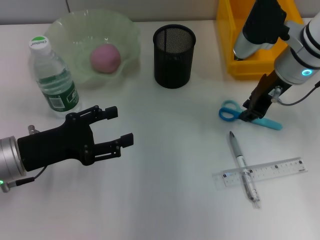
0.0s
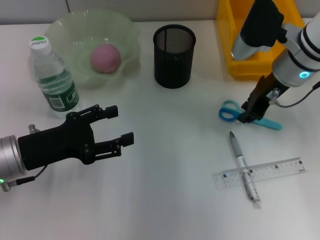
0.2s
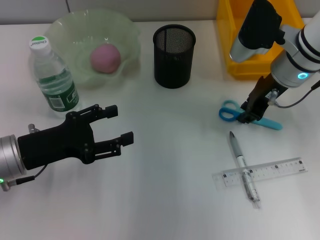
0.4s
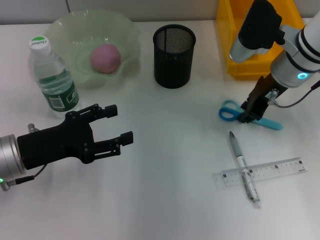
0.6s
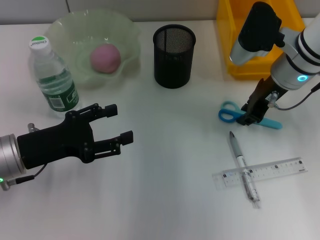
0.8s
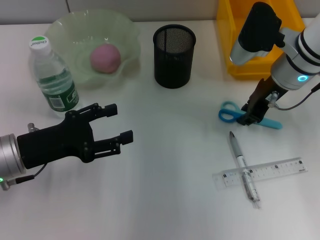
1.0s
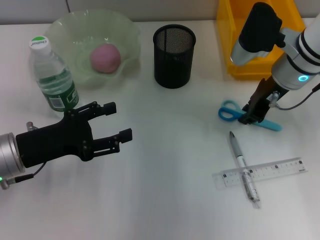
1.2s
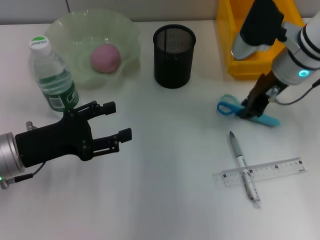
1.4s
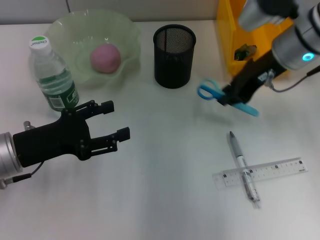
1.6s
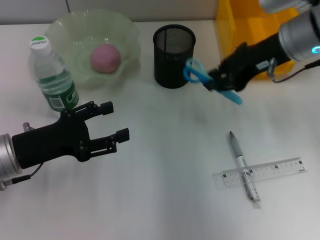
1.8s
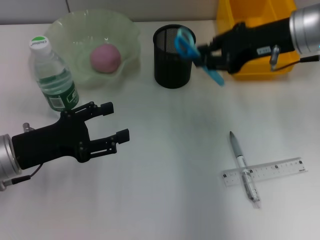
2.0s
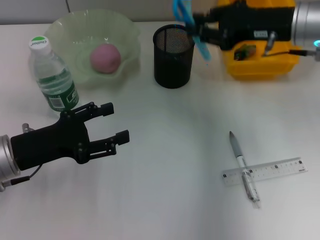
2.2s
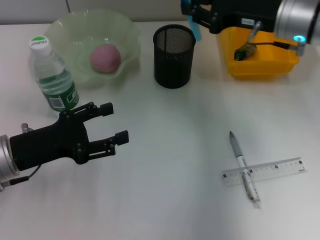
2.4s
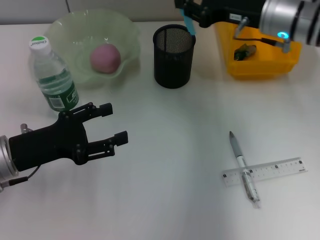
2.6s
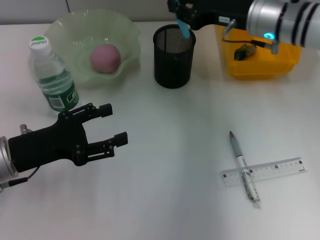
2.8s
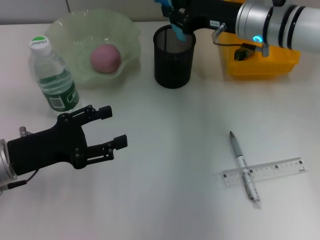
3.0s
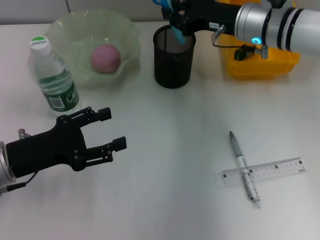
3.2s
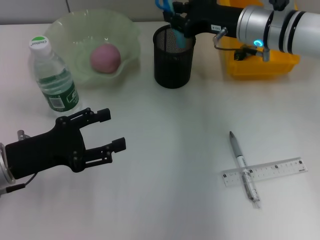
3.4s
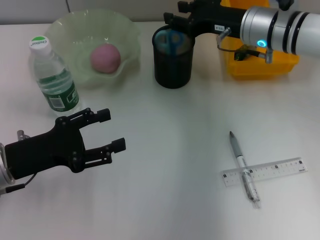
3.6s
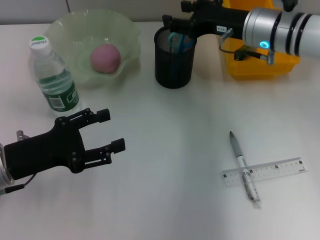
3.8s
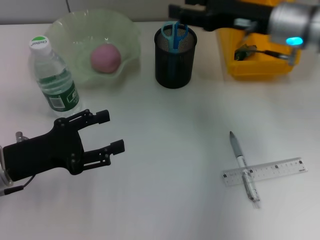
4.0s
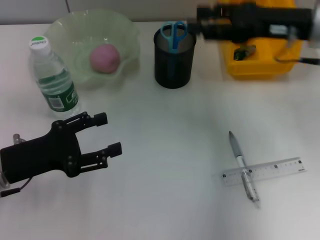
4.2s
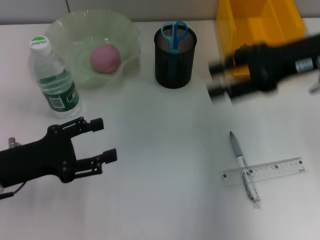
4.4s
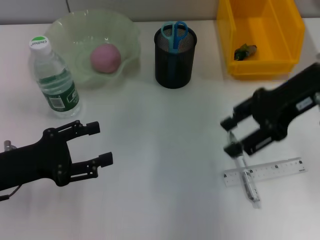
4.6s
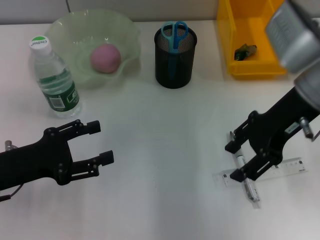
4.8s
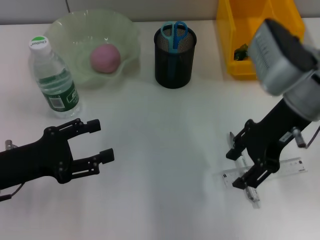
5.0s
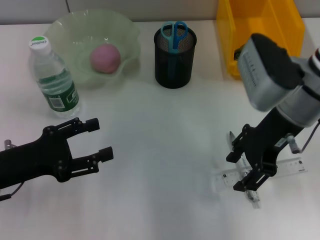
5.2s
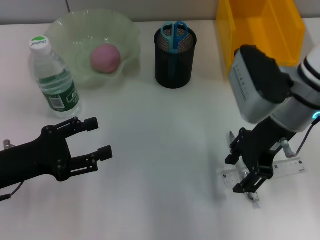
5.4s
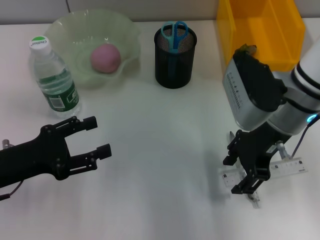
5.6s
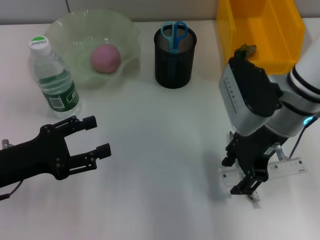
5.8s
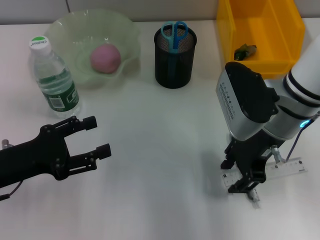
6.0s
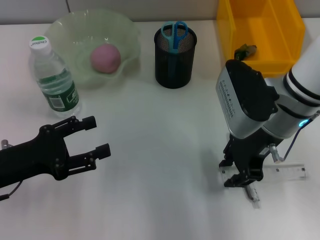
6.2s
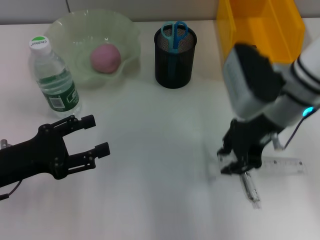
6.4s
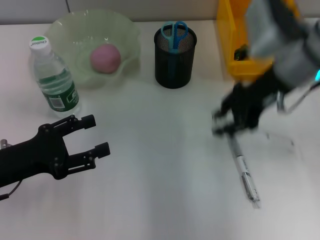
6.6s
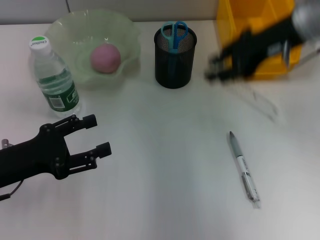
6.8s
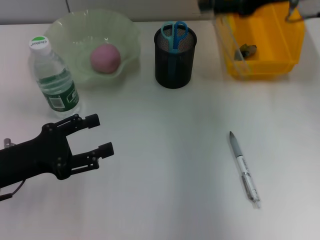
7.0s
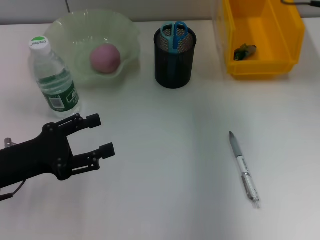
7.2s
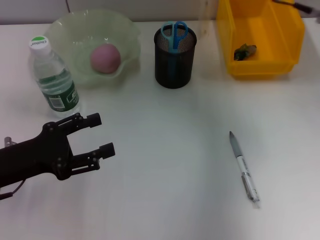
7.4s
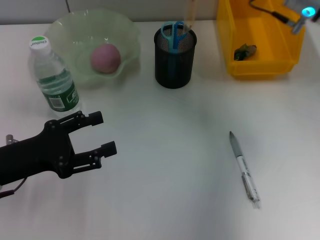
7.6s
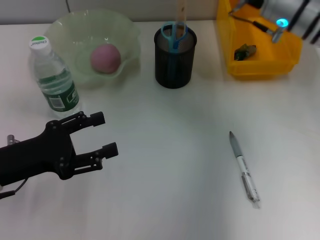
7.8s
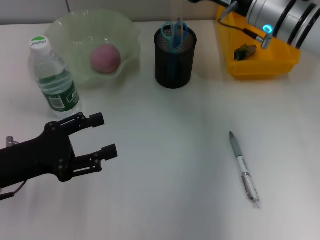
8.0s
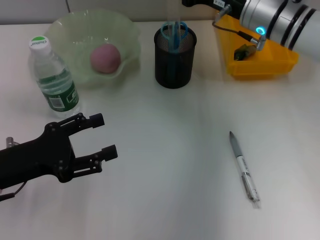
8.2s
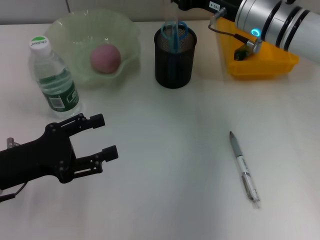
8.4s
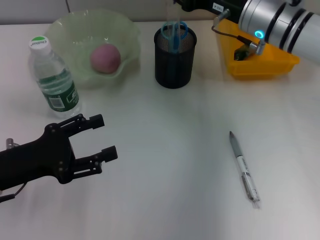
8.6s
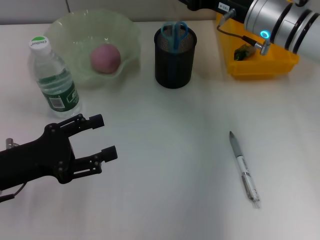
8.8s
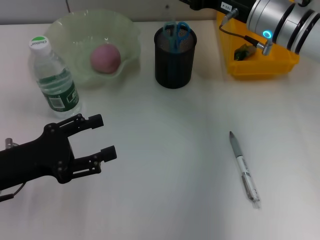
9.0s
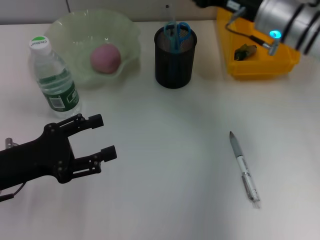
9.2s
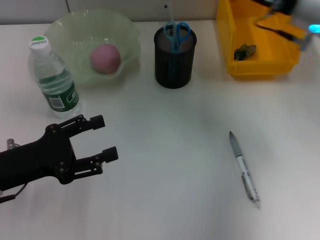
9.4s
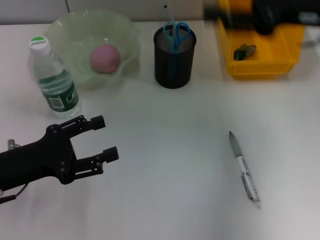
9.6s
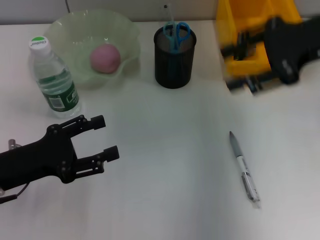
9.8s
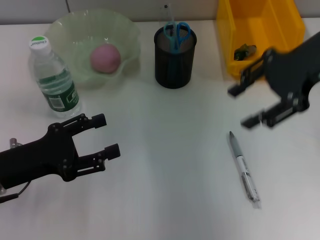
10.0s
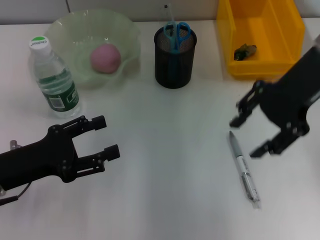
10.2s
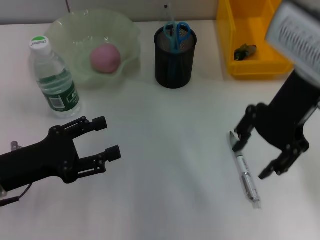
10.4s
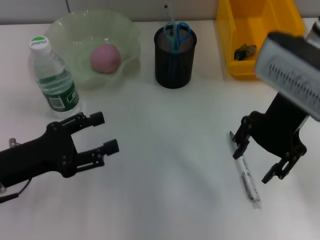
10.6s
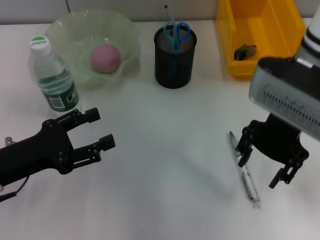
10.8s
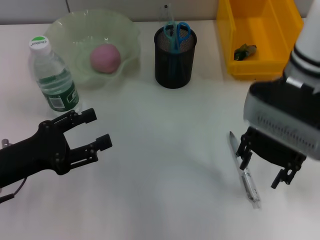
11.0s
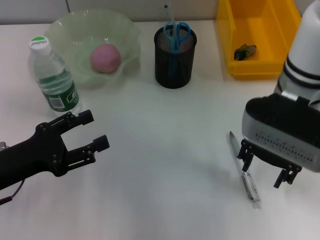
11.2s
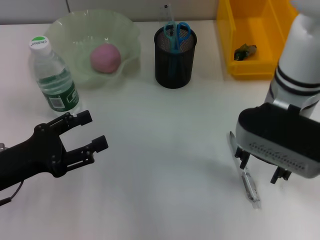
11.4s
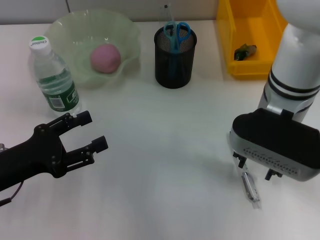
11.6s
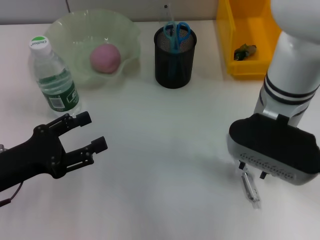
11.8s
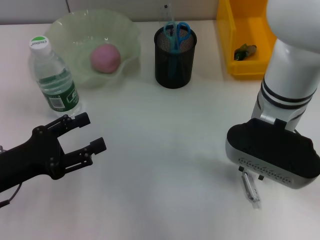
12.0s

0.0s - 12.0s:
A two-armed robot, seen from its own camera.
Step, 1.2s - 3.4s: Place the blue scissors into the pen holder with the right hand.
Step, 3.8s - 6.0s: Grab the ruler with the right hand.
Step, 6.2s - 9.0s: Place the ruler into the pen holder with the right hand.
0.0s - 1.6s: The right gripper closes its fingers.
1.6s - 3.0s: The right gripper moves about 5 cm.
3.0s - 4.4s: The right gripper heads to the right, backward and upward, covering approximately 15 cm, and opens up.
4.4s - 6.0s: The right gripper heads to the left and downward, covering about 10 cm.
6.0s - 7.6s: The right gripper moves forward, about 10 cm.
7.6s - 9.0s: The right gripper moves about 5 cm.
9.0s - 10.4s: The right gripper heads upward and backward, covering about 10 cm.
10.4s - 12.0s: The right gripper moves downward and to the left, about 10 cm.

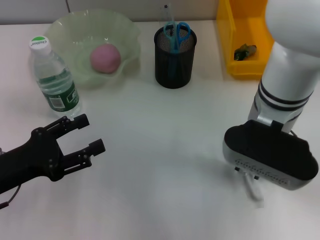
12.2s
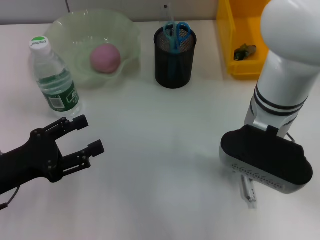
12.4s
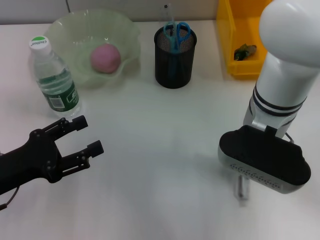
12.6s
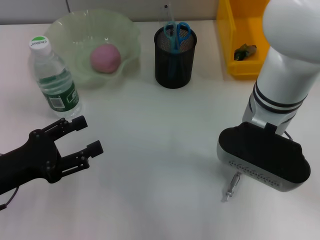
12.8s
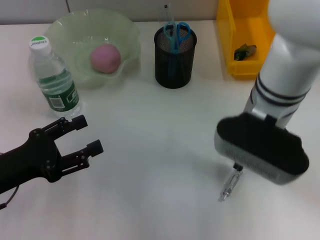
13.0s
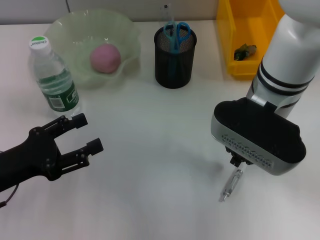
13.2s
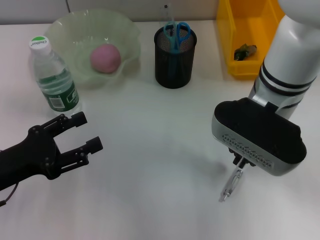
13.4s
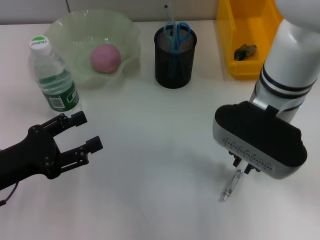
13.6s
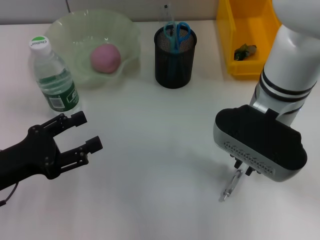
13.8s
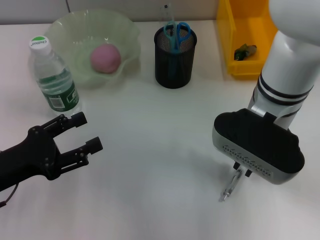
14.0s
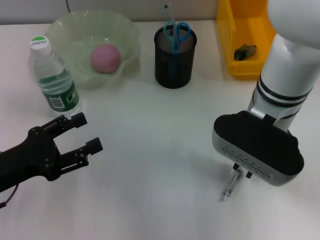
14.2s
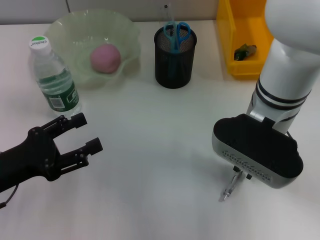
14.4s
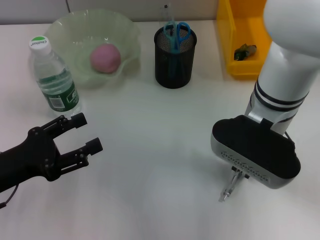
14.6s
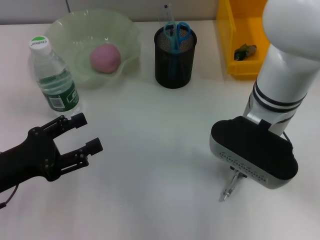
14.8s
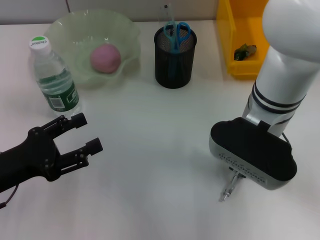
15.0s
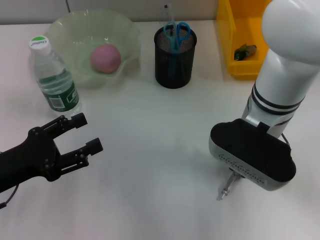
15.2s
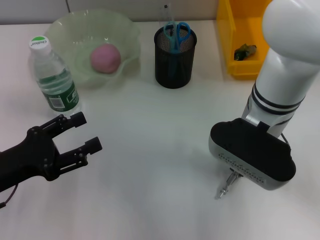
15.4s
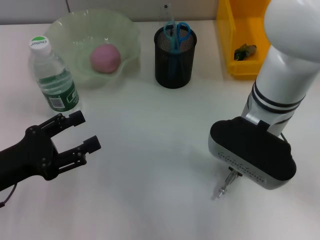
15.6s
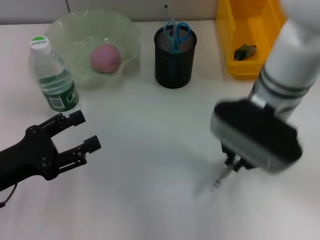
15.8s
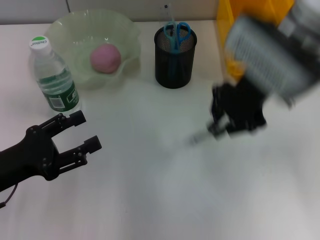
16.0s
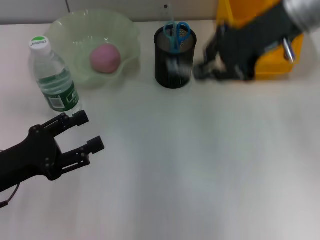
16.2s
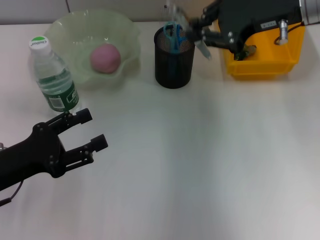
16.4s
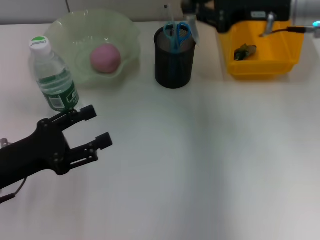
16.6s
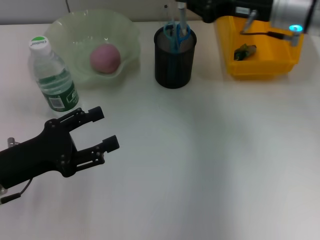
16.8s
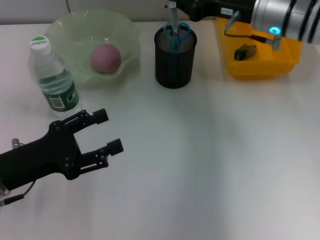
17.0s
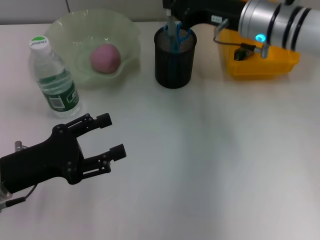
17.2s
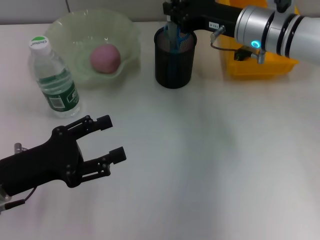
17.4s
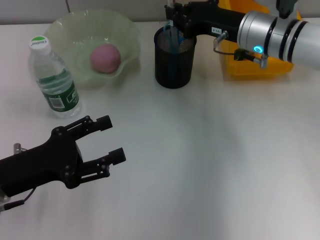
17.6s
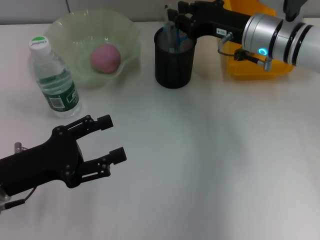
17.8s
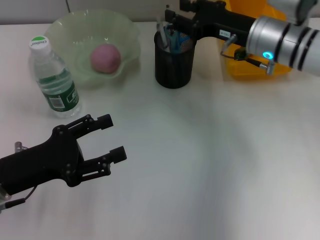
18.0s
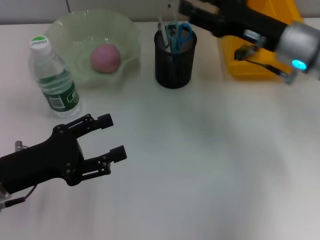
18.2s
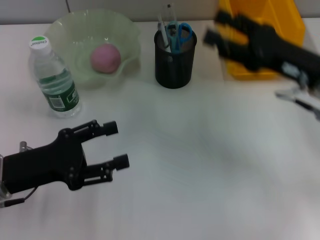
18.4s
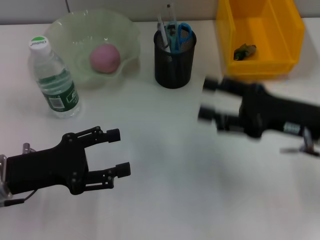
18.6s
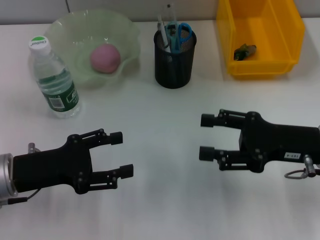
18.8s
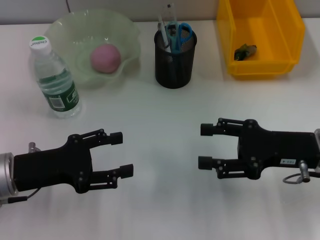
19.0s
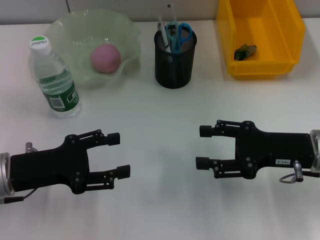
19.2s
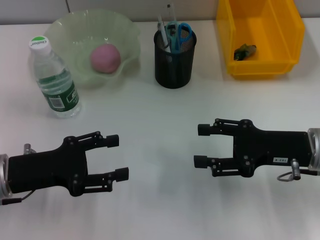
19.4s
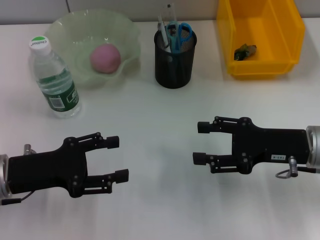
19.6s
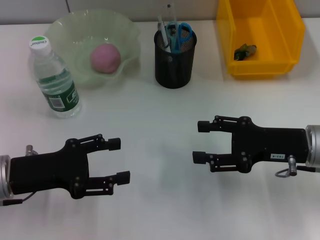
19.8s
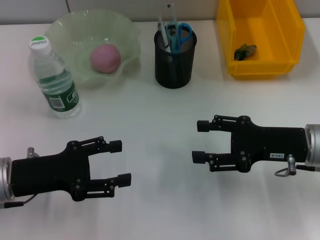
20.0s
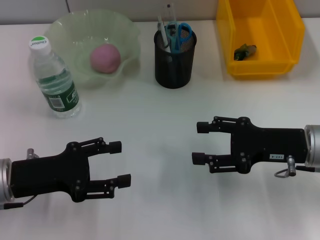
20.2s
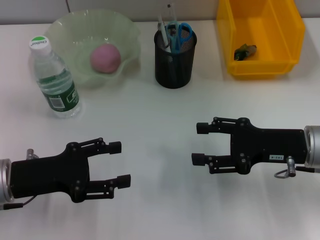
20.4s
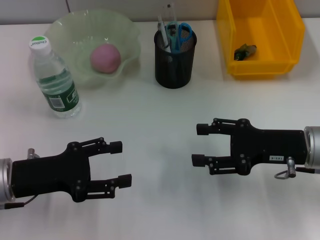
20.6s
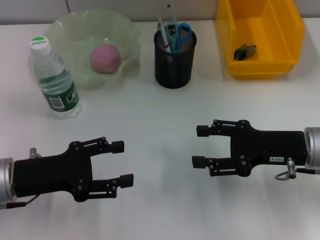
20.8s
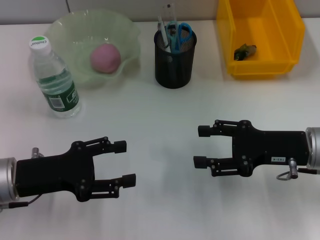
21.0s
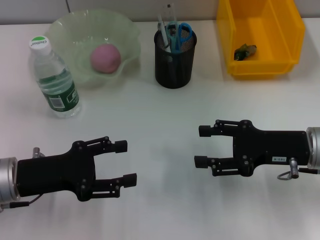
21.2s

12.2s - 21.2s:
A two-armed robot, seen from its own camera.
Step, 12.2s - 15.4s: Grab the gray spring-action pen with the right hand.
Step, 15.6s - 18.0s: Place the gray spring-action pen into the pen holder with the right hand.
12.2s - 13.8s: The right gripper closes its fingers.
13.8s - 15.2s: The grippers move only a little.
15.2s - 16.6s: The right gripper shifts approximately 15 cm to the right, forward and upward.
16.6s - 18.2s: The right gripper travels downward by approximately 5 cm, and opens.
18.2s - 19.8s: The right gripper heads backward and downward, covering about 10 cm.
19.8s - 21.2s: Neither gripper changes place.

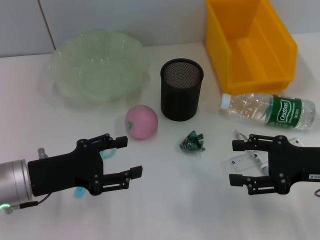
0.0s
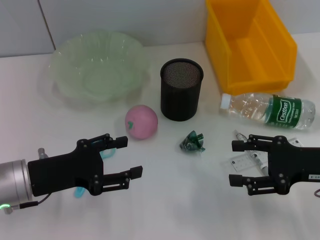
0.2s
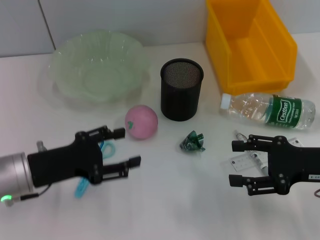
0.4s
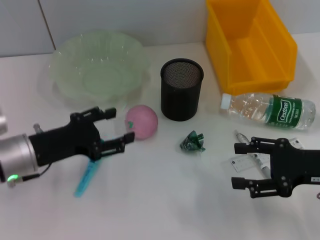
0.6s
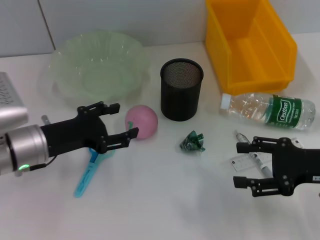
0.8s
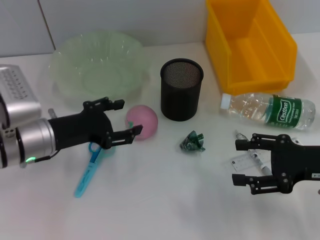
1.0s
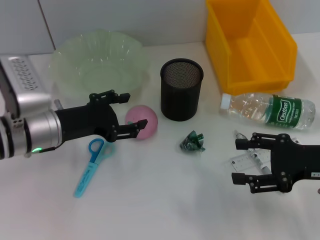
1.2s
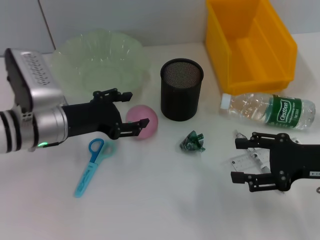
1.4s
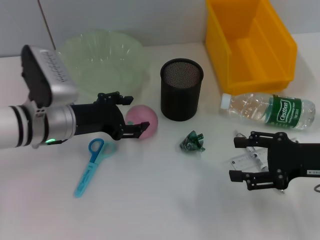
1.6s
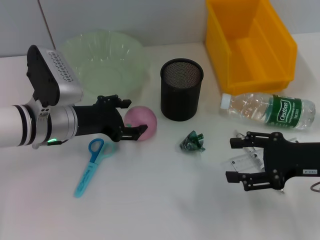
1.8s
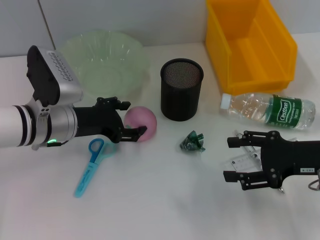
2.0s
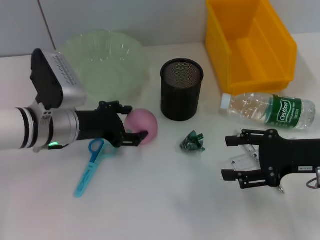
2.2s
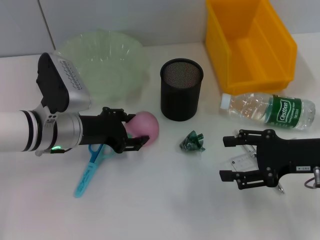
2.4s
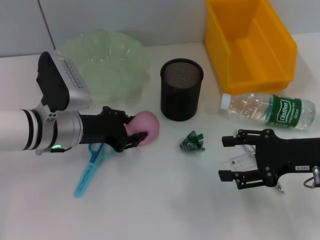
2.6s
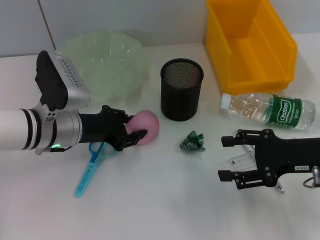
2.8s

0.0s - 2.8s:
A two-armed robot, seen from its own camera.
Step, 0.0s - 2.8s: Grab the peach with the left hand.
0.0s - 1.4s: The left gripper shifts roughly 10 cm forward.
1.4s - 2.8s: The left gripper closes up.
